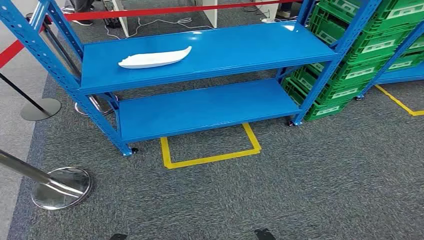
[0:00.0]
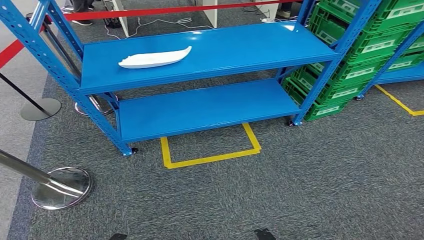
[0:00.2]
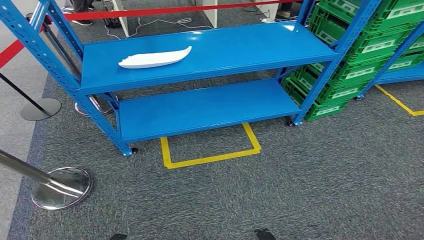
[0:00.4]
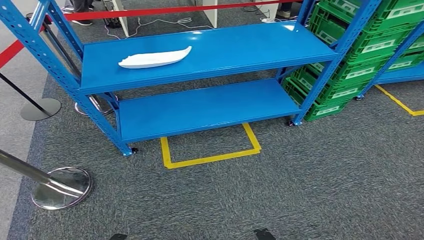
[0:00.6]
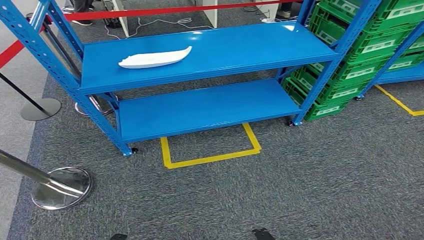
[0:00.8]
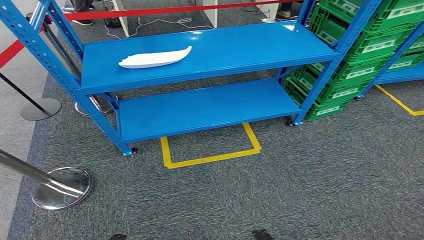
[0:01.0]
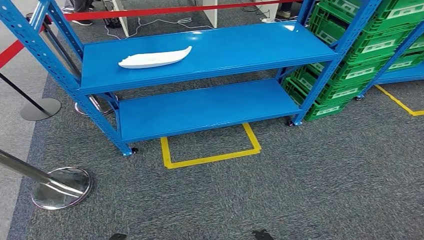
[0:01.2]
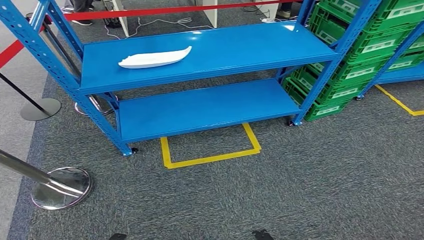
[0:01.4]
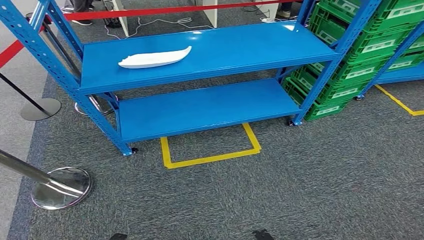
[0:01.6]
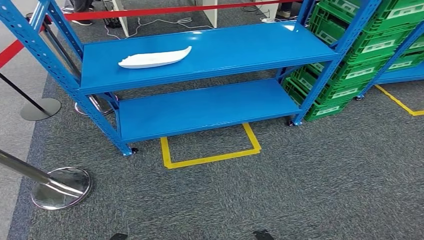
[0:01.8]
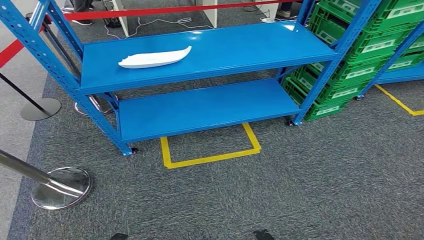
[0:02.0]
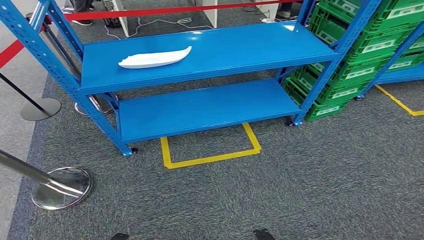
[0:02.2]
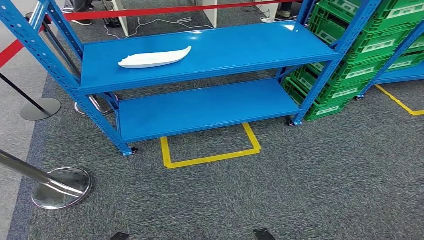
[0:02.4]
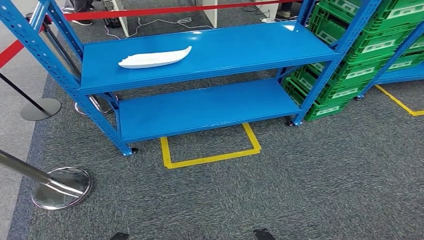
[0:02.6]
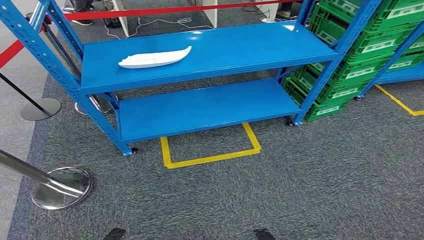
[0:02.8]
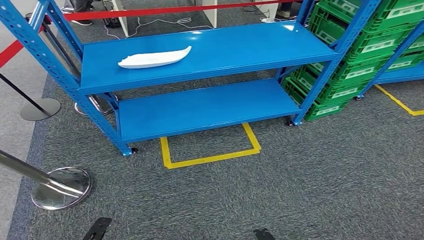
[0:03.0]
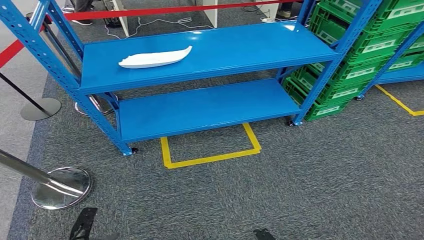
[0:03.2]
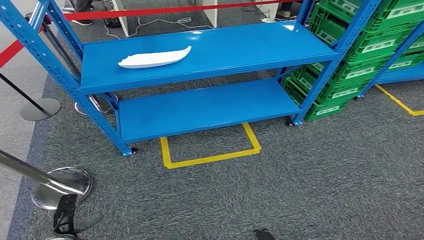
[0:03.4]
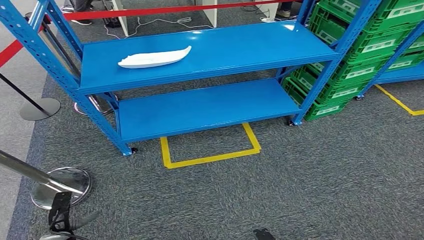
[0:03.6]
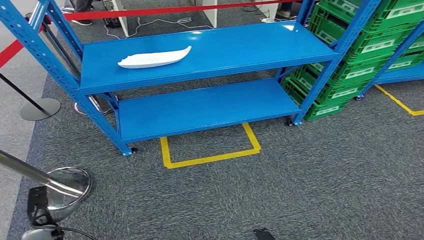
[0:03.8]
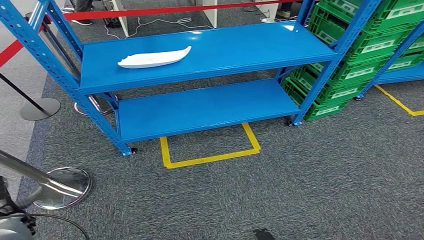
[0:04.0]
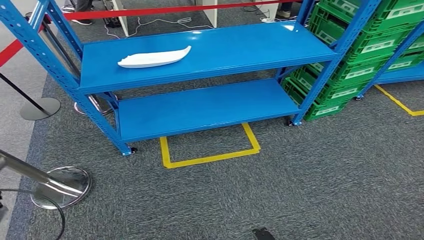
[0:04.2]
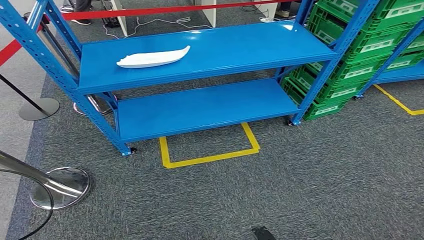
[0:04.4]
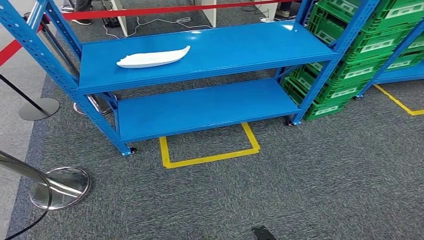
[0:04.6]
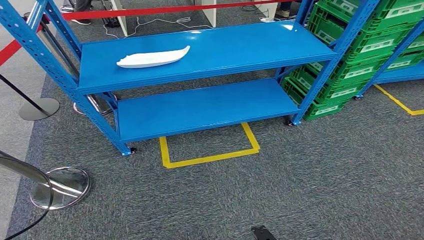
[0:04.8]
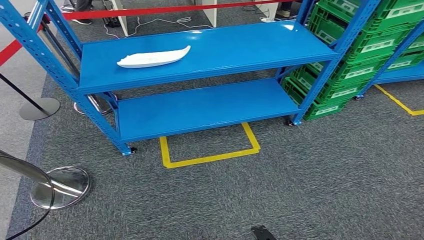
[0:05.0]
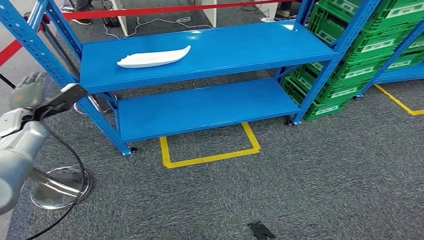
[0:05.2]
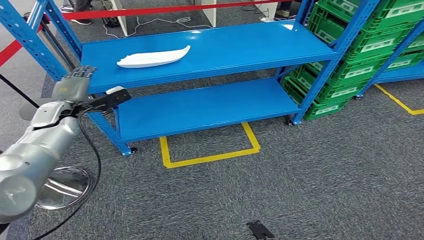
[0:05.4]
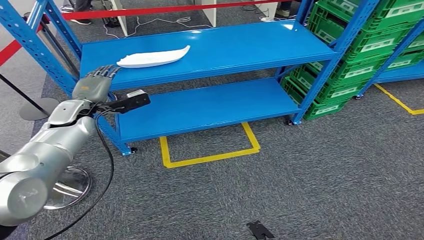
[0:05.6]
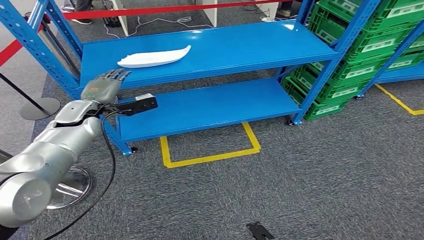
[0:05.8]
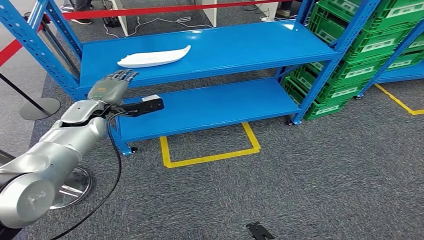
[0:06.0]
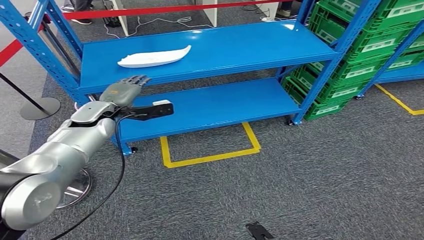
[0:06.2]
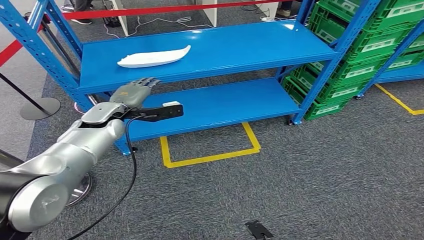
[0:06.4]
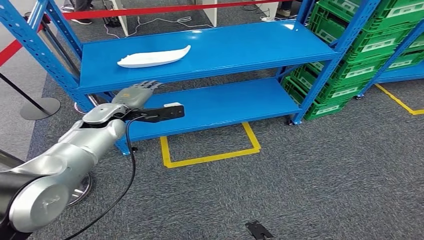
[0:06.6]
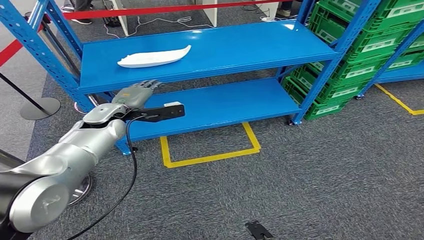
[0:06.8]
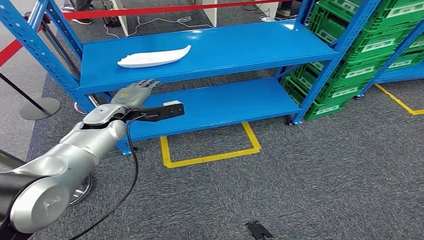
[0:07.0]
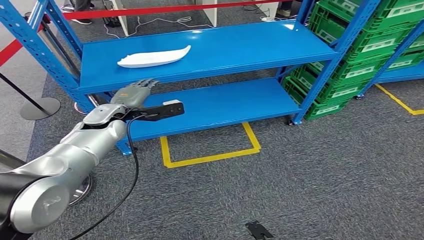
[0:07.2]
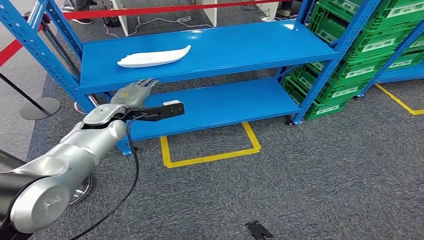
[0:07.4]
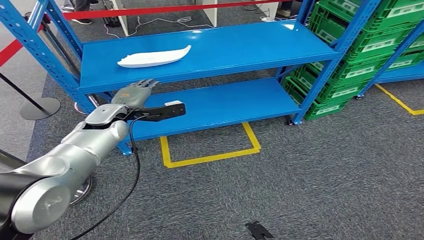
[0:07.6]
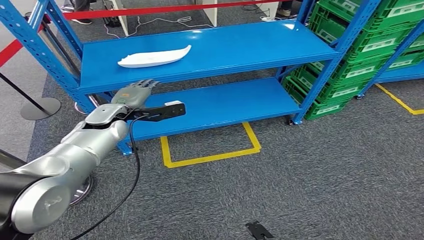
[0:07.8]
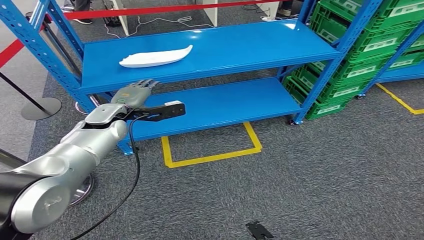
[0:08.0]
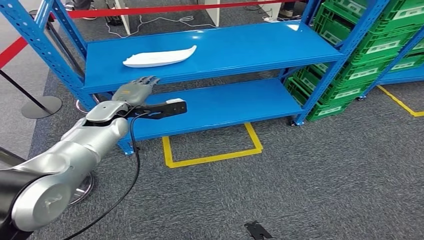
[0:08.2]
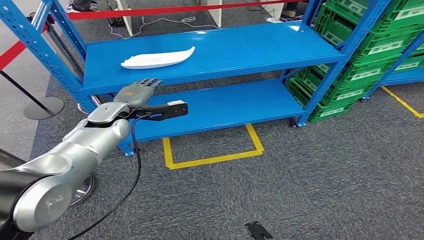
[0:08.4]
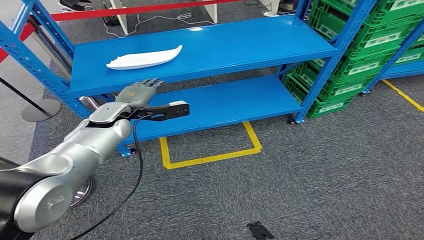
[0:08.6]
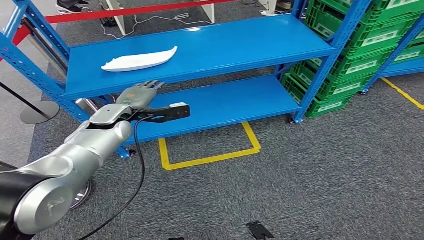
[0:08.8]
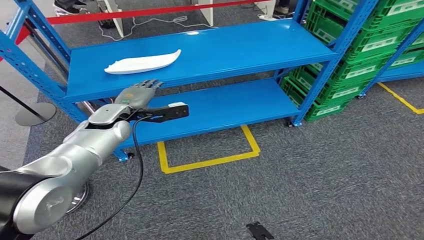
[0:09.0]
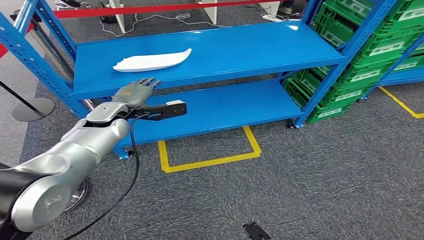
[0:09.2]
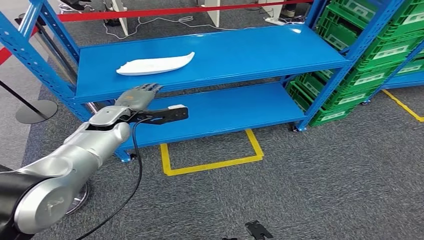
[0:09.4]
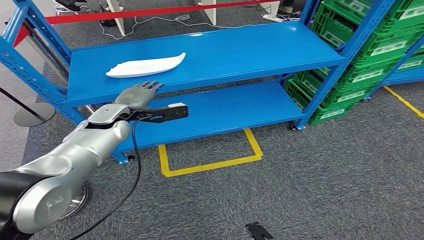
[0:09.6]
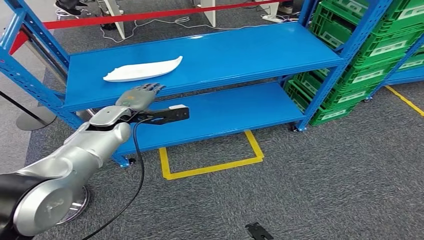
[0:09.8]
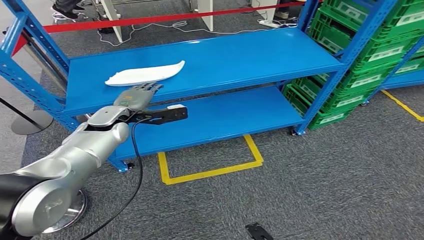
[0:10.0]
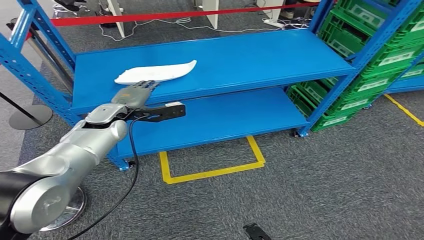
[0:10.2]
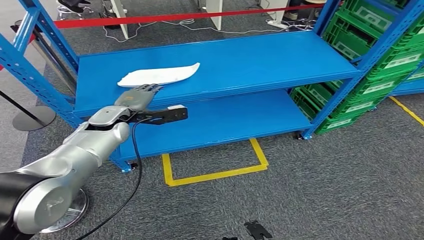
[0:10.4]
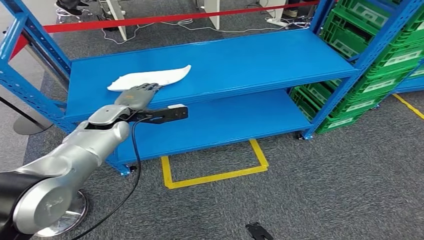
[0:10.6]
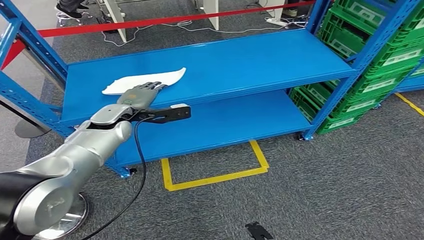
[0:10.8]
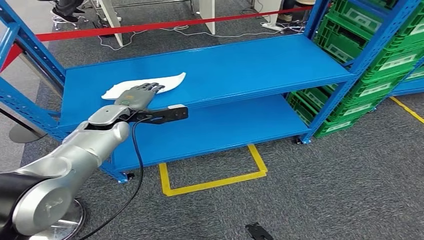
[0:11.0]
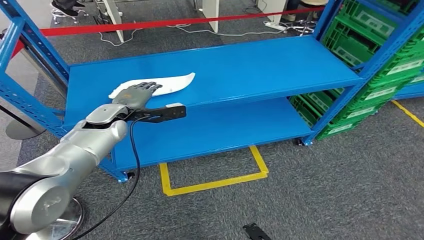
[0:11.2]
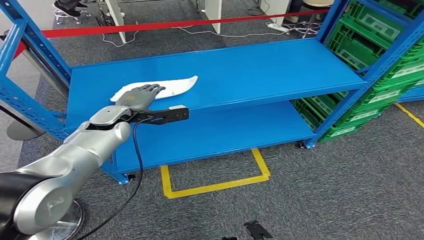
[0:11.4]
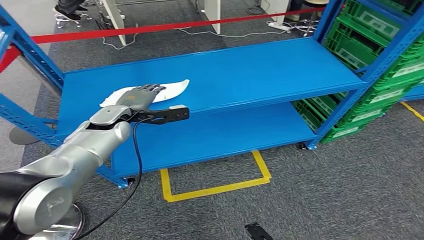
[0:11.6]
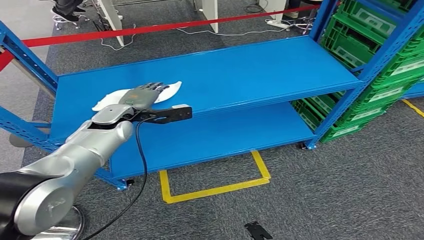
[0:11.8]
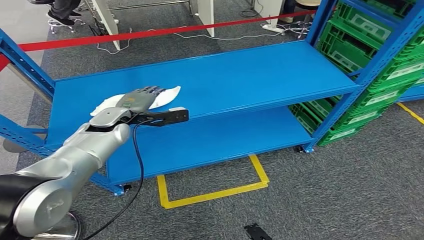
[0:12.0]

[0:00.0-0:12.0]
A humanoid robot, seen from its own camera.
0:03.0 to 0:04.4: The left hand shifts roughly 40 cm to the left, forward and upward.
0:04.4 to 0:06.0: The left hand moves to the right and forward, some 35 cm.
0:06.0 to 0:07.6: The left hand heads to the right, covering approximately 5 cm.
0:07.6 to 0:09.0: Both hands stay about where they are.

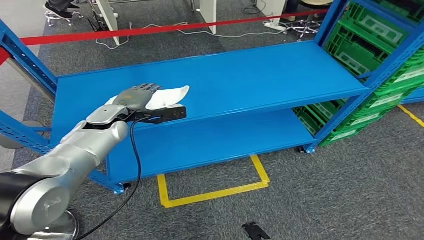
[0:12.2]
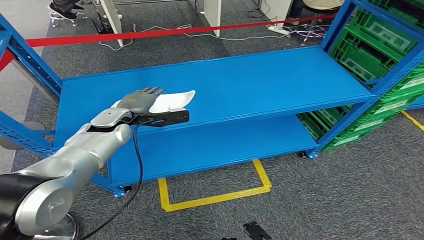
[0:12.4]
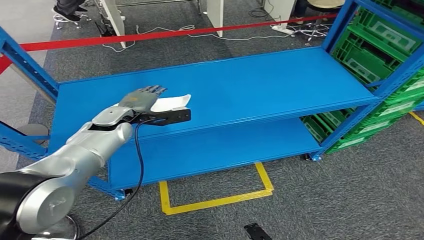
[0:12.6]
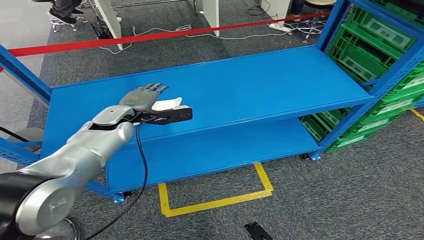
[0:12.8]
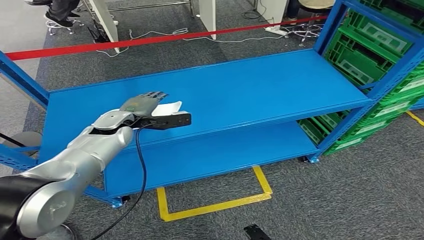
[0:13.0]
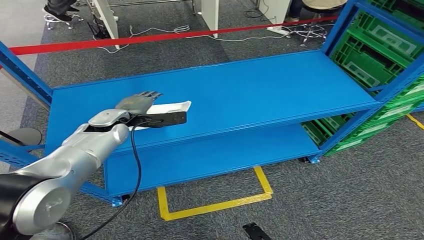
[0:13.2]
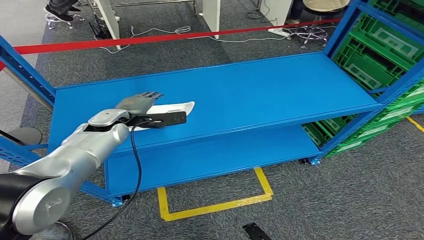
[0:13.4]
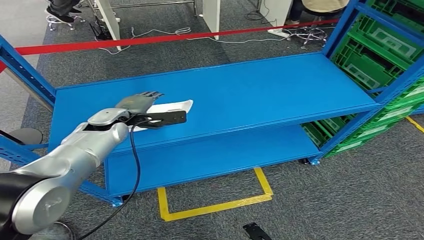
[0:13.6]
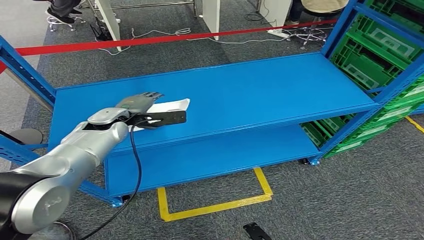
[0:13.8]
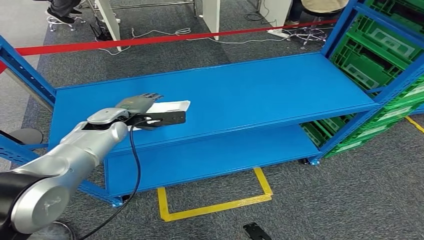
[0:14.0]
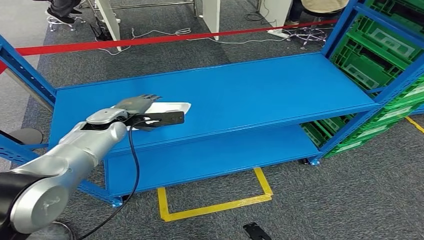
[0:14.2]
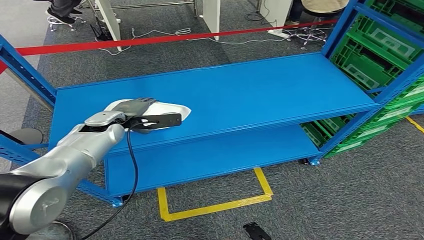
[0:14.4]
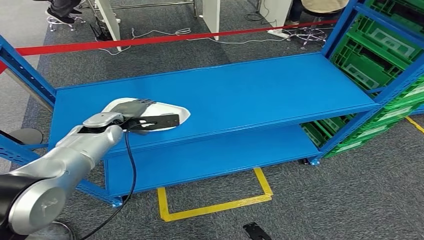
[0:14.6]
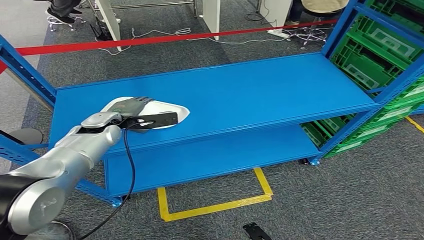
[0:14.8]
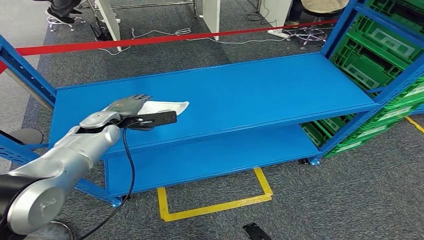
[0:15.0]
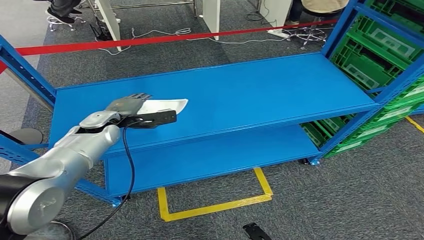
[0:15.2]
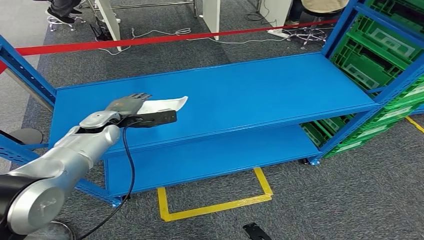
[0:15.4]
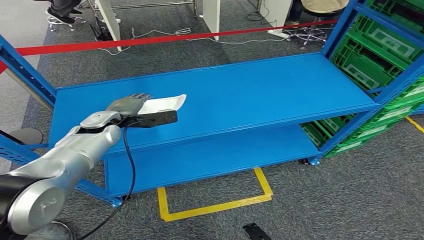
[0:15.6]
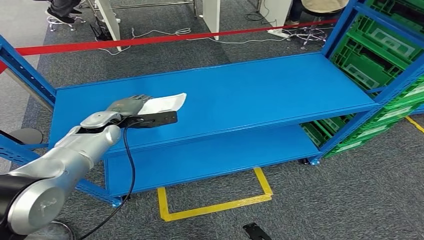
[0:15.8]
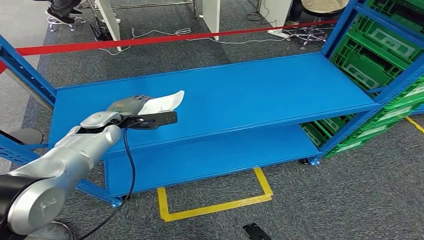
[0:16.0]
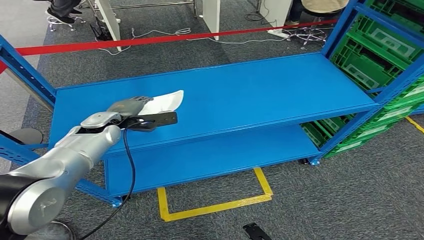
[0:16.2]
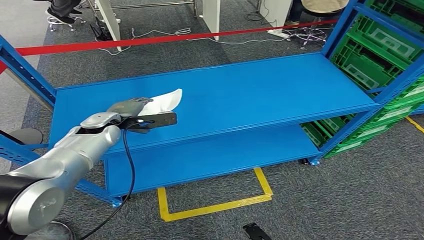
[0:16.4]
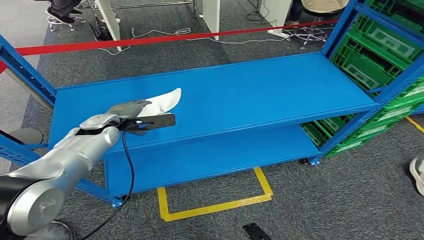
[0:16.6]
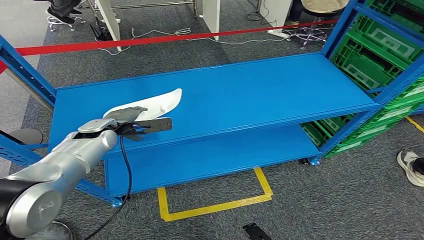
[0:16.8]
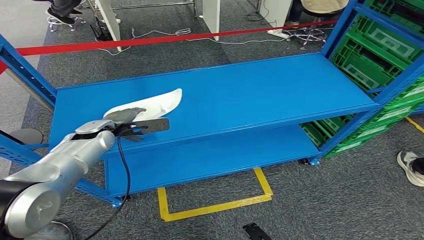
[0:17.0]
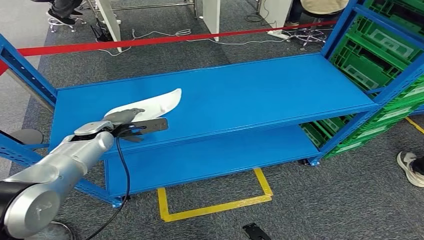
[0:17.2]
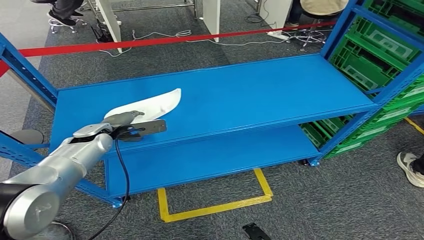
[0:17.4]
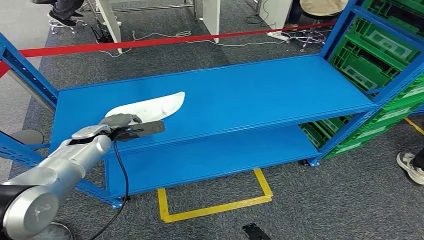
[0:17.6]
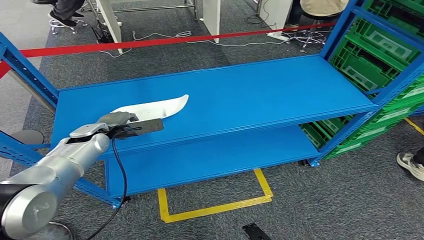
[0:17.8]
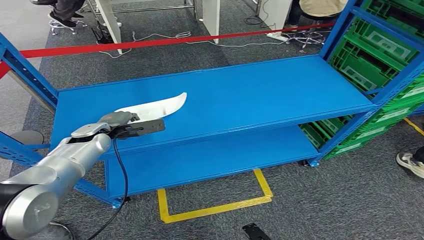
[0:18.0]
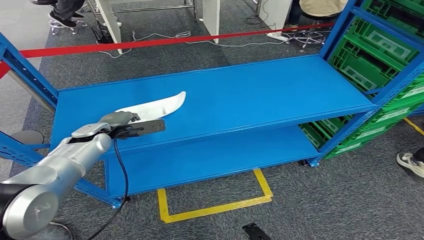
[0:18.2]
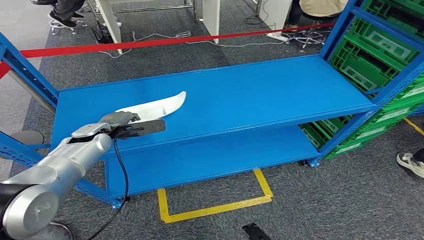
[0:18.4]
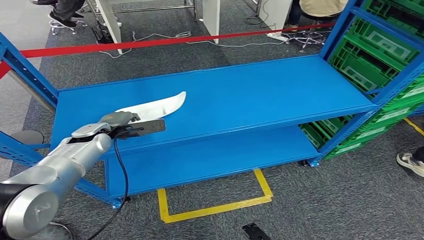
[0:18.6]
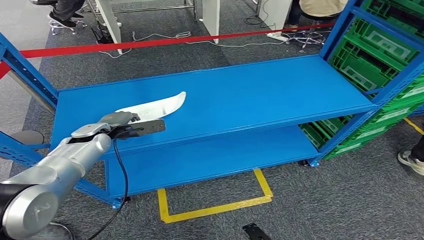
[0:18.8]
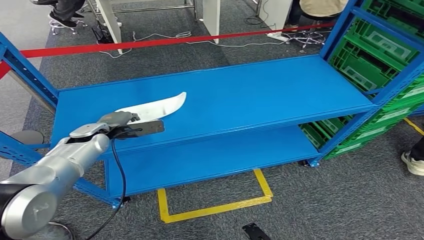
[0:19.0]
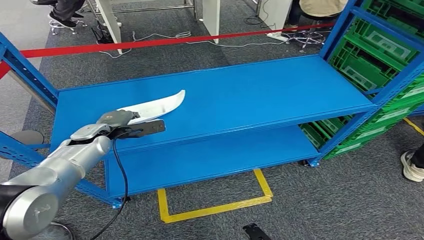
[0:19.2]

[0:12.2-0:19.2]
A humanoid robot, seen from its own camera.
0:13.6 to 0:15.0: The hands stay close to where they were, moving slightly.
0:15.0 to 0:16.4: Neither hand changes place.
0:16.4 to 0:17.8: The left hand changes place by approximately 5 cm.
0:17.8 to 0:19.2: There are only small adjustments of the hands.
